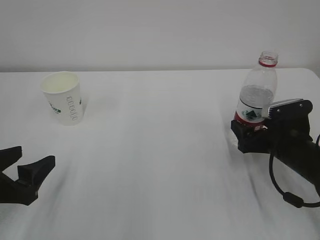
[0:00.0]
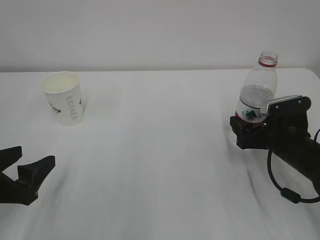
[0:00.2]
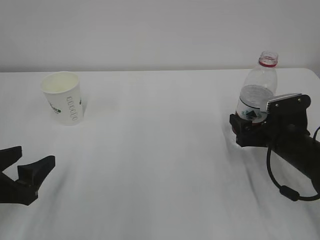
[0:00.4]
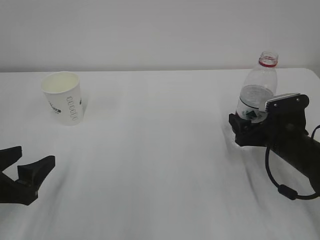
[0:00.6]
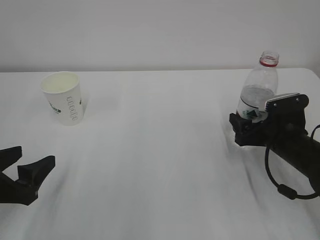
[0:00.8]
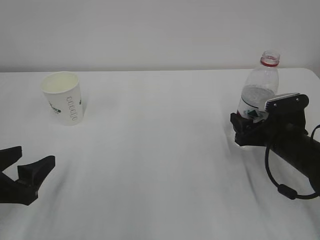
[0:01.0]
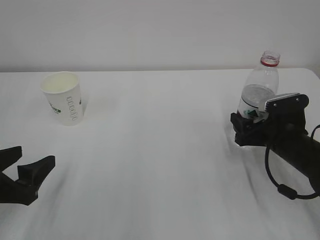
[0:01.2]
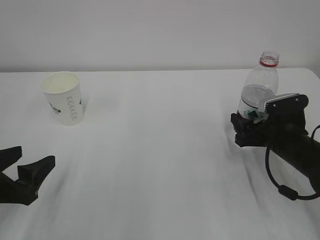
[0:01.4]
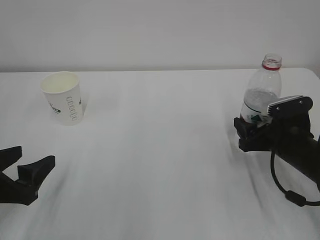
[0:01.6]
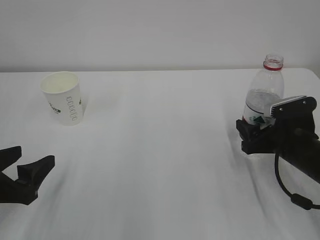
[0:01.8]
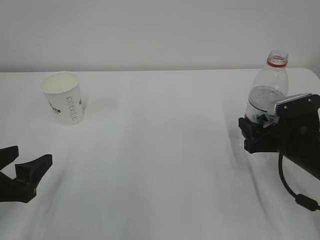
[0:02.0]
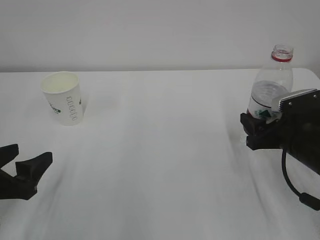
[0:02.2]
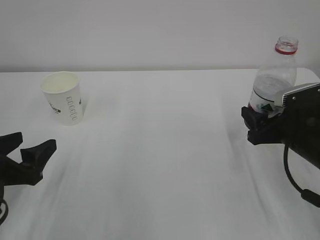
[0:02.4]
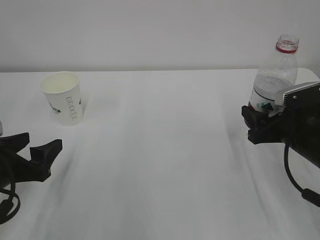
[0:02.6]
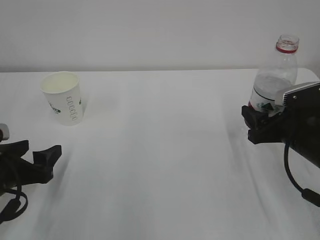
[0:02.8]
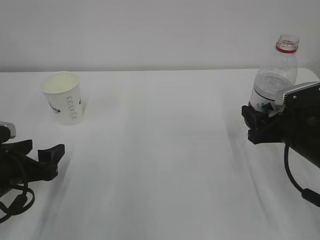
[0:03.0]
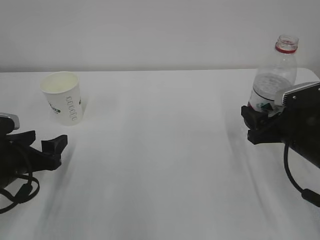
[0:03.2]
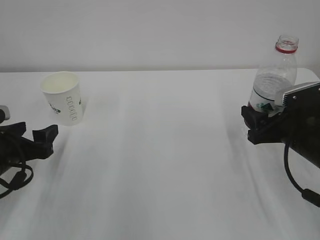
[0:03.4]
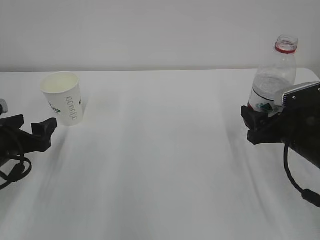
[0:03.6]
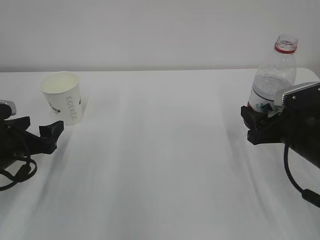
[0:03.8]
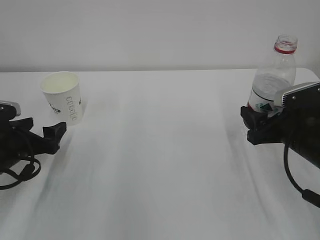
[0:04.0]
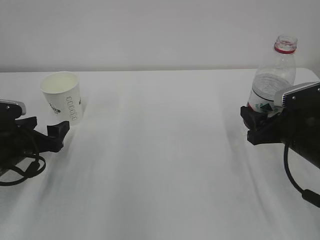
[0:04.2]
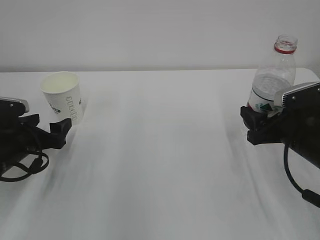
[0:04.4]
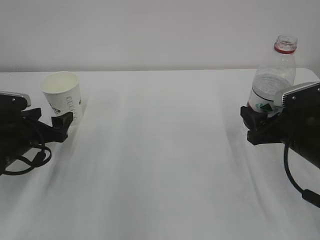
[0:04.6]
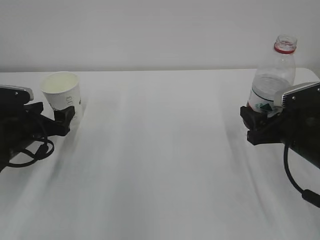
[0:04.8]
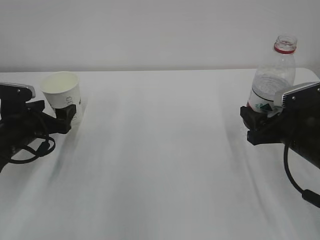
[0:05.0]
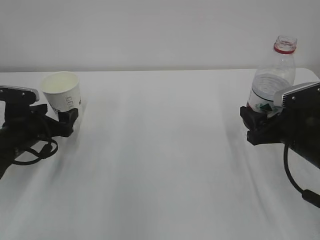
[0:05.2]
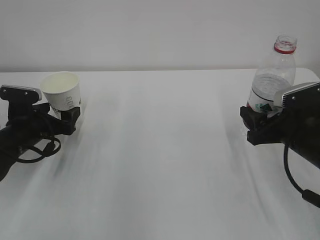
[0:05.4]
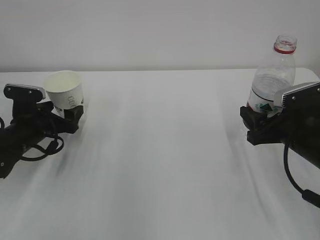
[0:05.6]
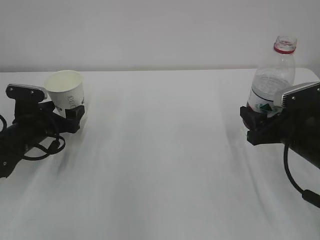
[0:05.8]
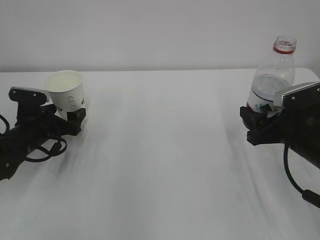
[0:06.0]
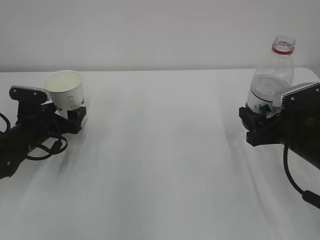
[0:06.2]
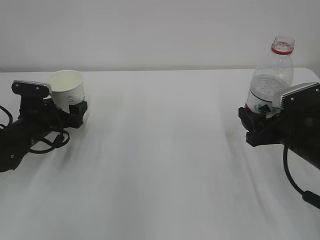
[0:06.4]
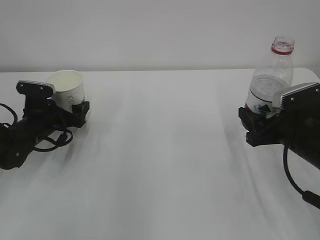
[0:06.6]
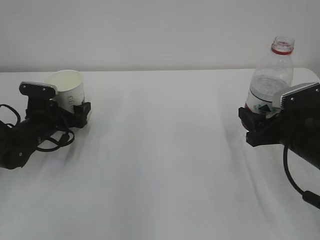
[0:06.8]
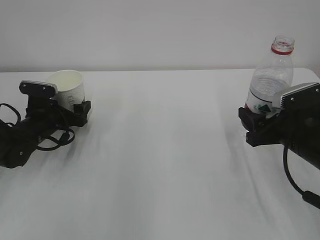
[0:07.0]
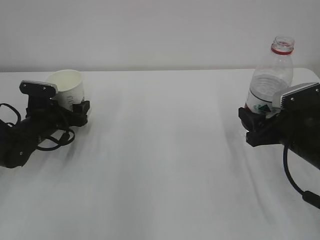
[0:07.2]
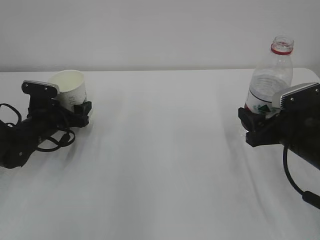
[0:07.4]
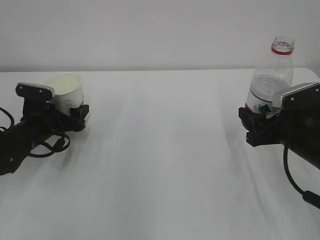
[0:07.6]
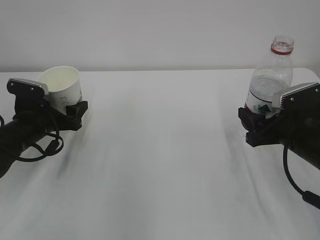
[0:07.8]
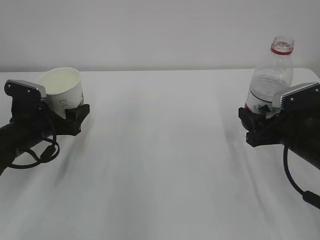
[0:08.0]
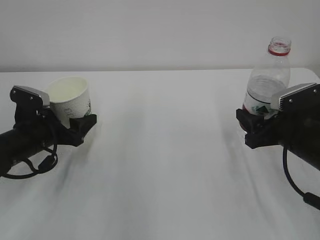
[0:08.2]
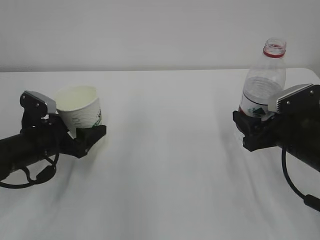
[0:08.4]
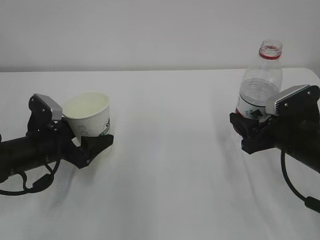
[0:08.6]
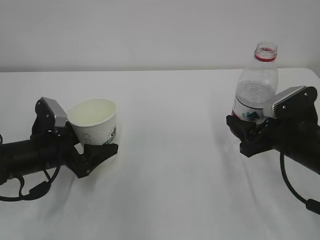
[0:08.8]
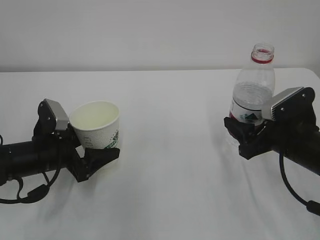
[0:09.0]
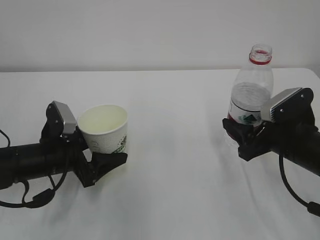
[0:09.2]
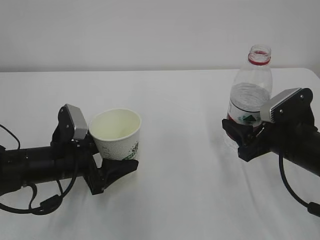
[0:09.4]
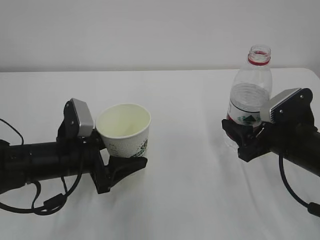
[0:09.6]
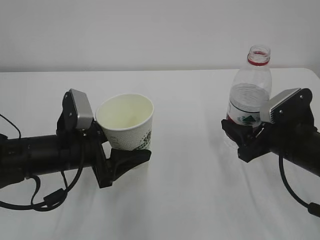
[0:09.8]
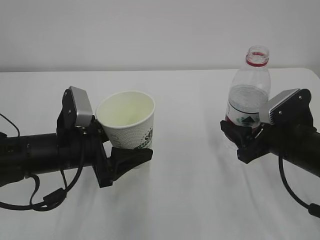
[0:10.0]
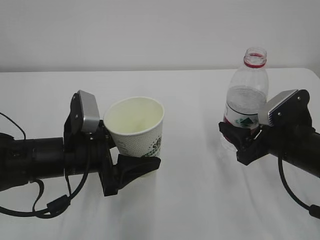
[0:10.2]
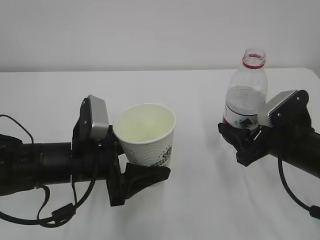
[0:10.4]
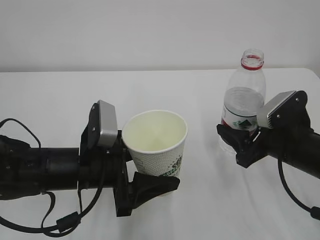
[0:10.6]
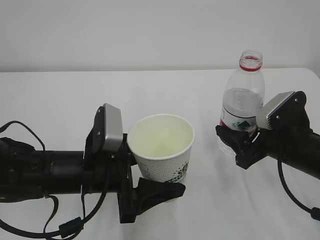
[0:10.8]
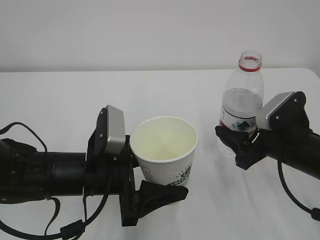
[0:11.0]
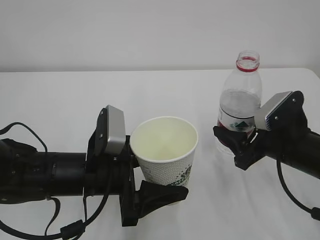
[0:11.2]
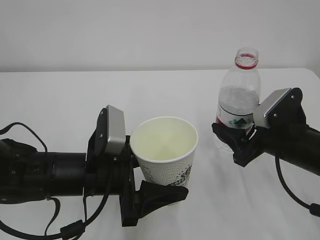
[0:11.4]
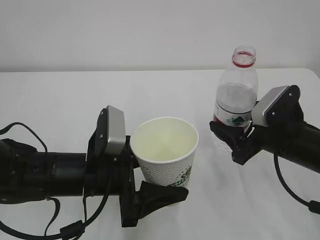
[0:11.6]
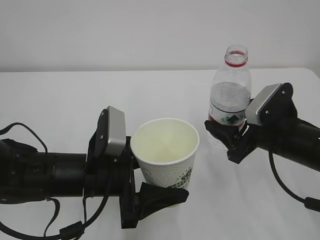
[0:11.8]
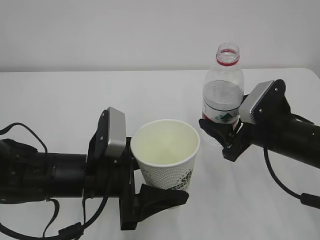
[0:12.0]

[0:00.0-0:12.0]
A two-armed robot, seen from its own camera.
0:00.0 to 0:01.6: The grippers move only a little.
0:01.6 to 0:03.0: The left gripper moves some 5 cm.
0:03.0 to 0:04.4: The left gripper travels forward by roughly 10 cm, and opens its fingers.
0:04.4 to 0:06.0: The left gripper shifts some 5 cm forward.
0:06.0 to 0:07.6: The left gripper closes.
0:07.6 to 0:09.0: The left gripper goes roughly 10 cm backward.
0:09.0 to 0:10.4: The left gripper is displaced to the right by roughly 10 cm.

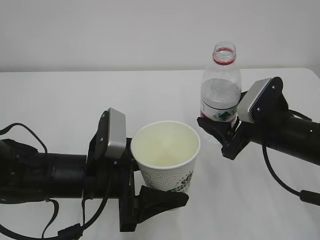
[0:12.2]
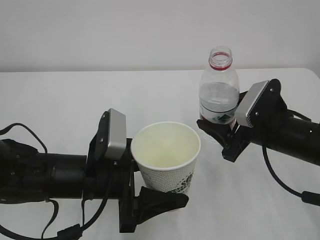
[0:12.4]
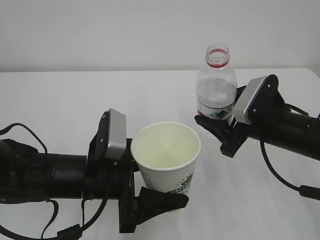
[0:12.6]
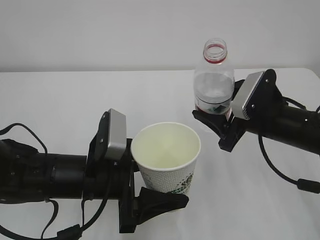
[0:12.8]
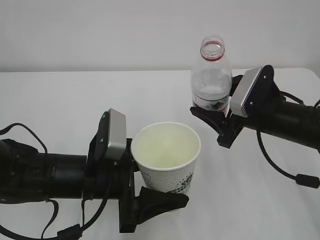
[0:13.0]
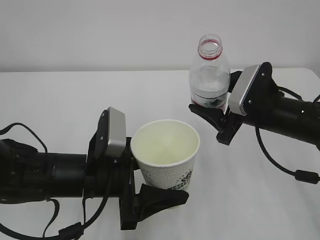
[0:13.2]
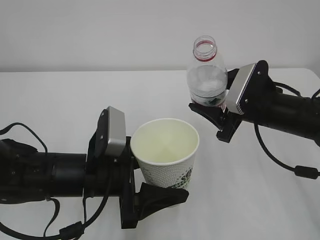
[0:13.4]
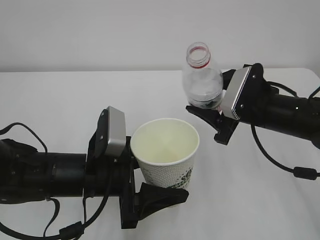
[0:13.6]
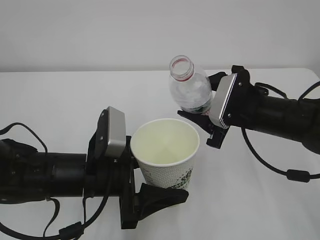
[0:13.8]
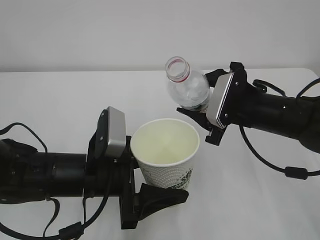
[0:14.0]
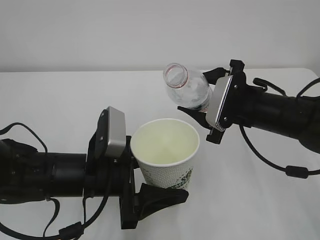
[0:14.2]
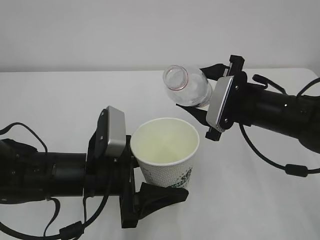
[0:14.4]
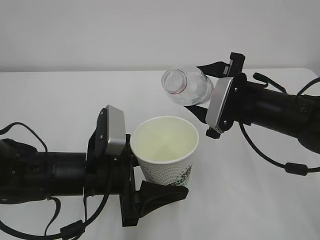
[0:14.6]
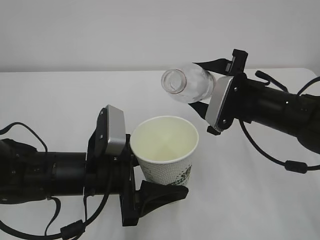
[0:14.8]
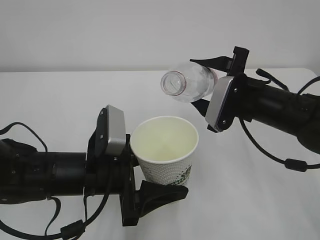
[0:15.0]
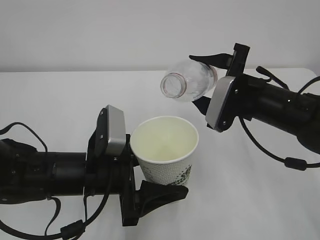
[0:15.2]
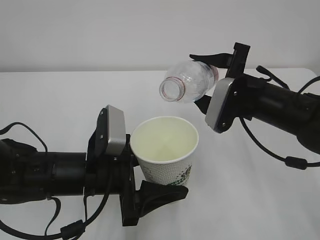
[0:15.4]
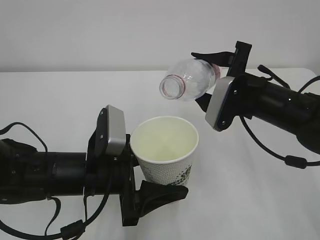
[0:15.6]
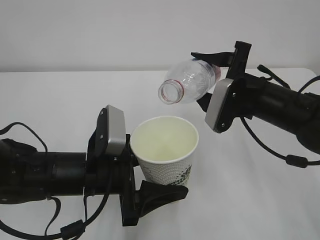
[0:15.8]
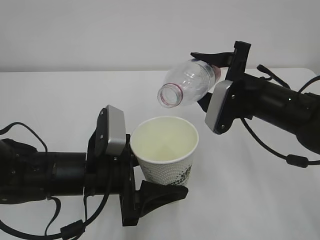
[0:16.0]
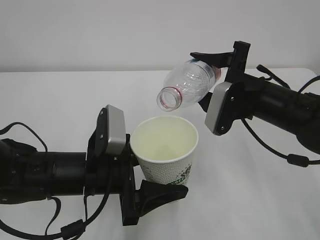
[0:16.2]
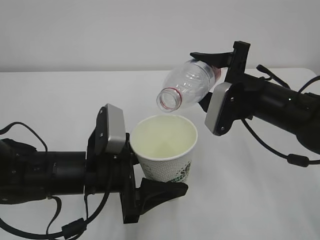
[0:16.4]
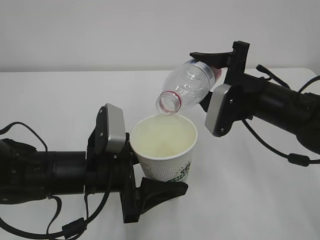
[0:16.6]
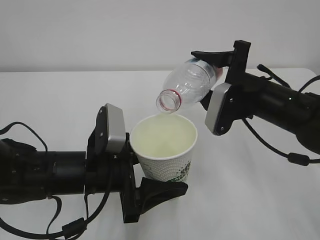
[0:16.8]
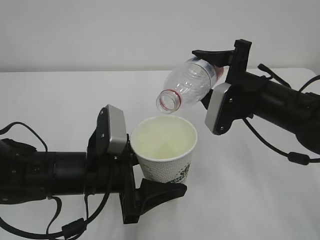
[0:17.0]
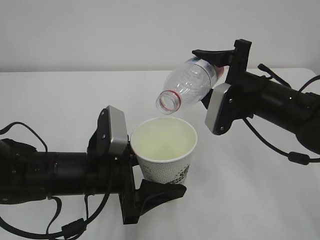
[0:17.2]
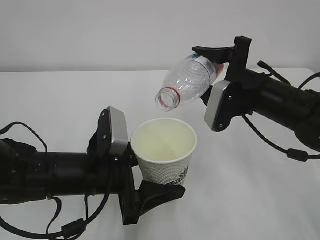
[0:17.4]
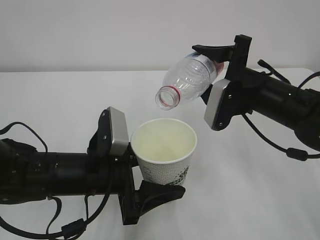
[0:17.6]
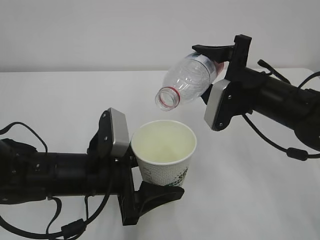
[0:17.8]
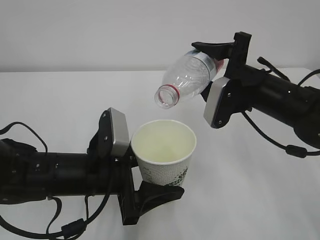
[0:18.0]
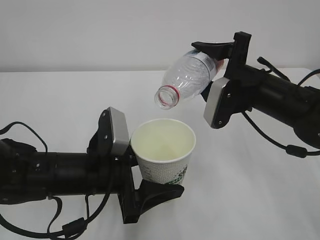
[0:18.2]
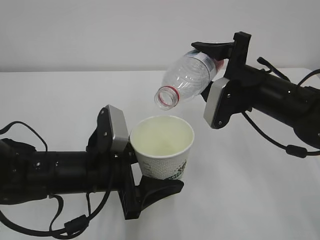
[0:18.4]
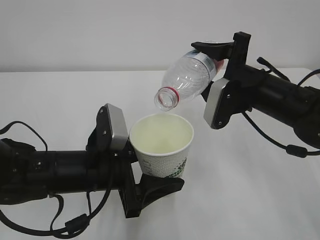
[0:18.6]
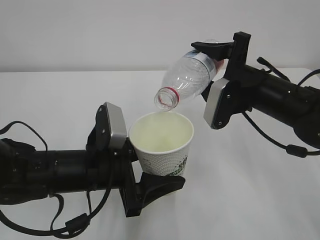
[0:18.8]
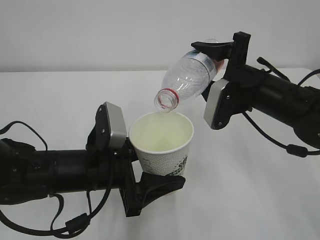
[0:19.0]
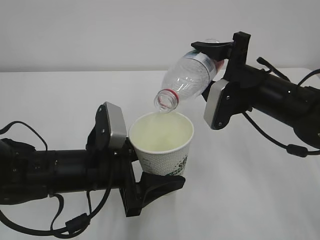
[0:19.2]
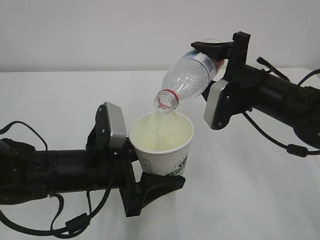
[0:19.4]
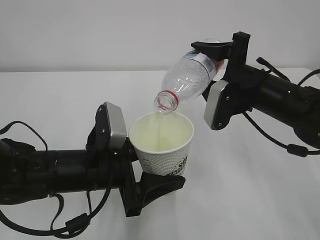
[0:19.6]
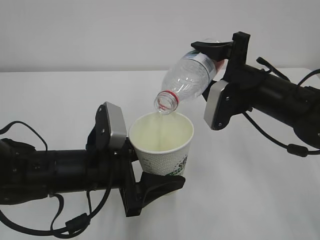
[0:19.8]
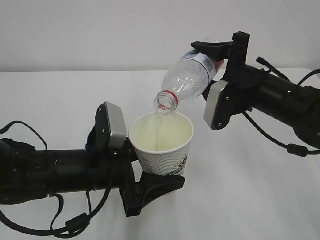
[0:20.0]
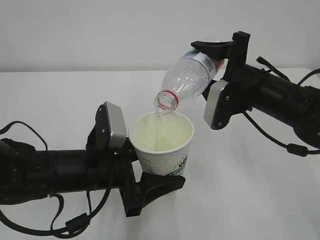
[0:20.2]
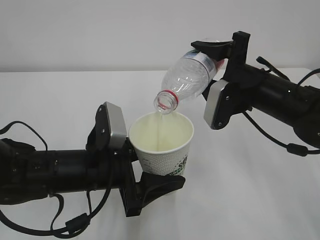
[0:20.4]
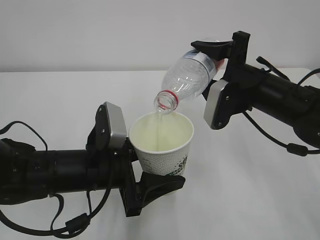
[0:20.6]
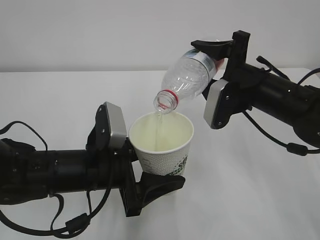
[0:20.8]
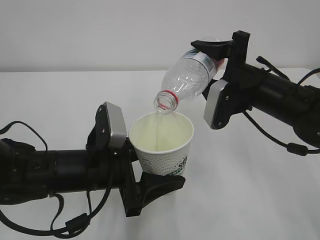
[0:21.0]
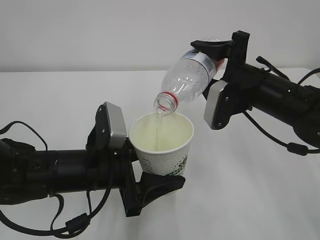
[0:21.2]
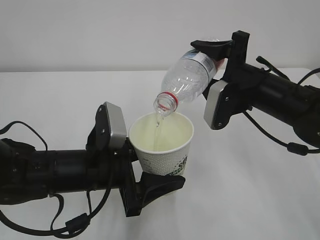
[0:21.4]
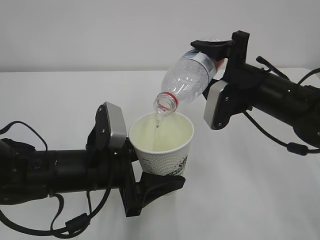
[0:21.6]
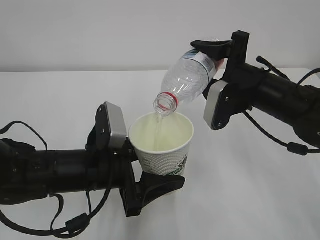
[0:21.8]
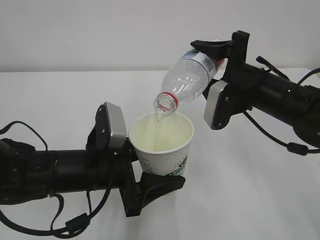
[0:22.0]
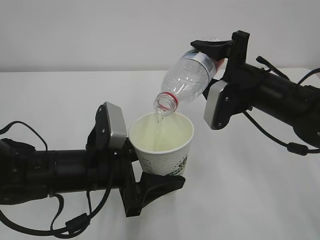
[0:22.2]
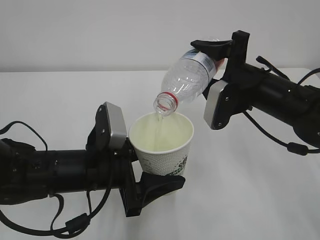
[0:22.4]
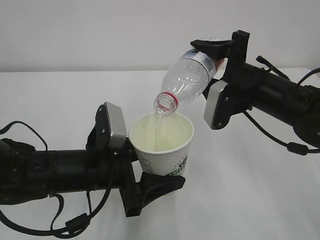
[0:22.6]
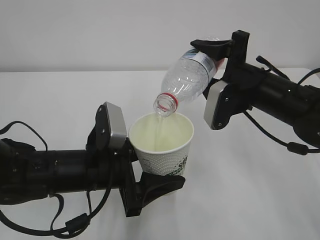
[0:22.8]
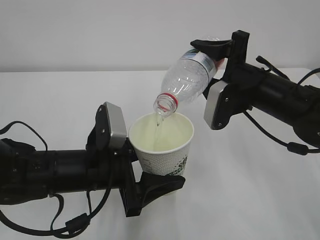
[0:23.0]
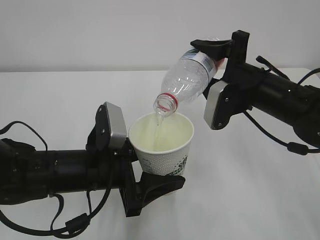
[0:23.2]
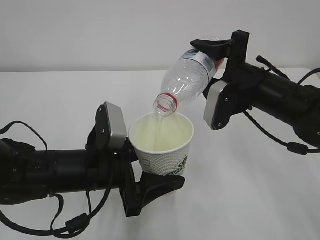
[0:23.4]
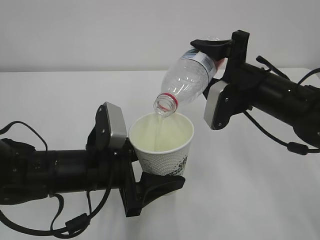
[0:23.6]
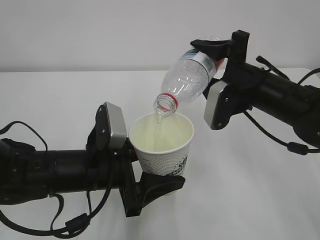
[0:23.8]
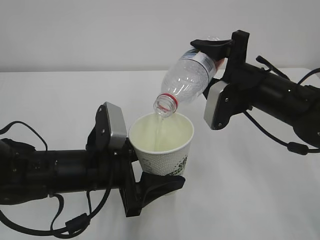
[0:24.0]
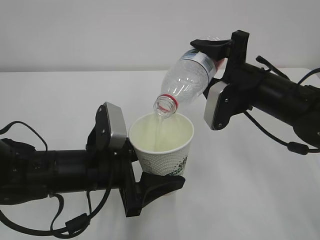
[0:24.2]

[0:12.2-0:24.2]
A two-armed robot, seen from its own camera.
0:15.2 to 0:18.2: The grippers move only a little.
0:18.2 to 0:19.8: The two grippers keep their place.
0:19.8 to 0:24.2: Both grippers stay put.
